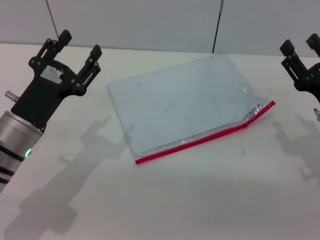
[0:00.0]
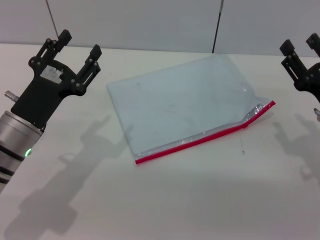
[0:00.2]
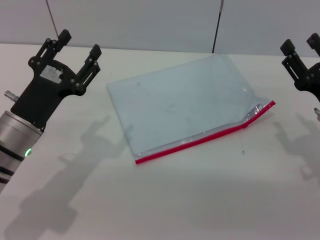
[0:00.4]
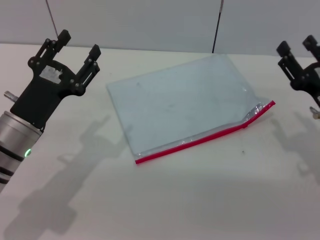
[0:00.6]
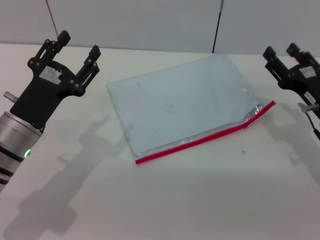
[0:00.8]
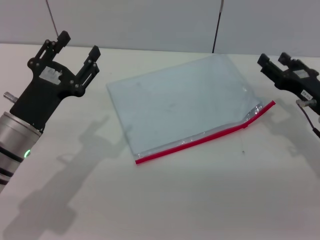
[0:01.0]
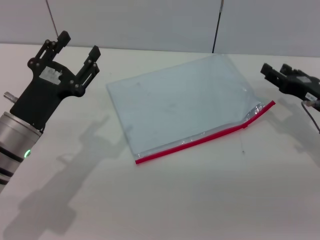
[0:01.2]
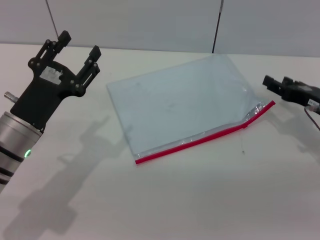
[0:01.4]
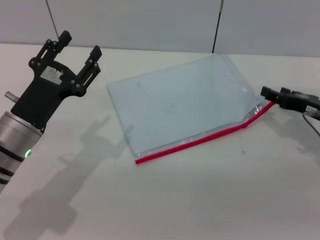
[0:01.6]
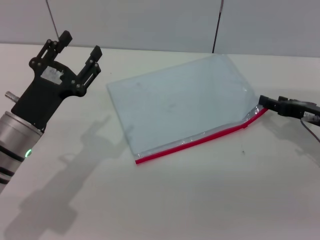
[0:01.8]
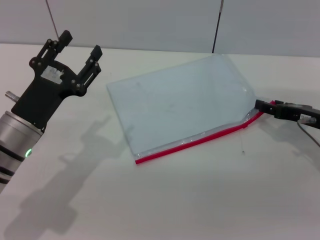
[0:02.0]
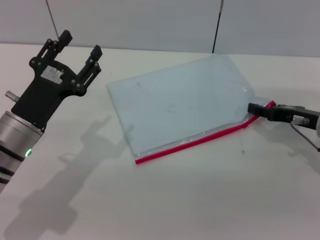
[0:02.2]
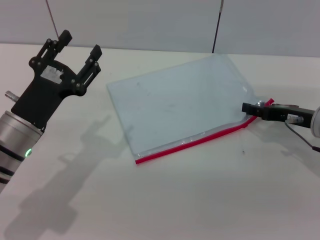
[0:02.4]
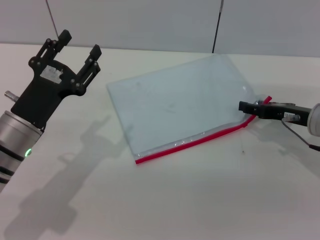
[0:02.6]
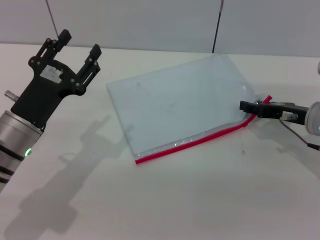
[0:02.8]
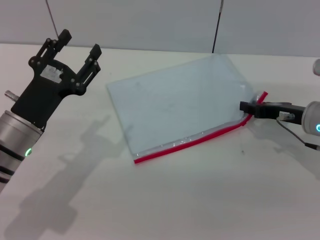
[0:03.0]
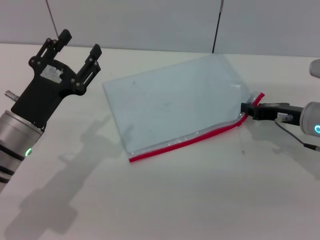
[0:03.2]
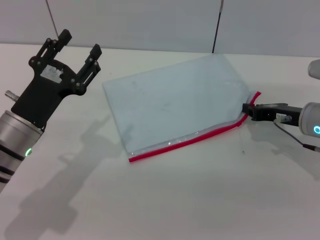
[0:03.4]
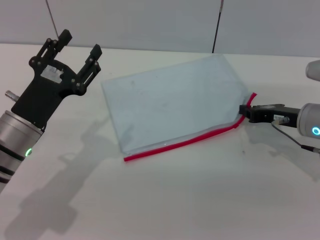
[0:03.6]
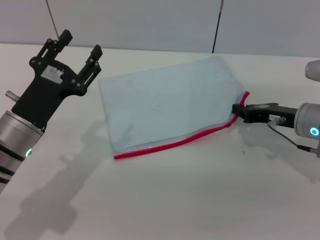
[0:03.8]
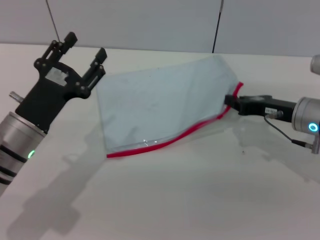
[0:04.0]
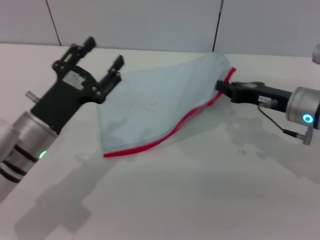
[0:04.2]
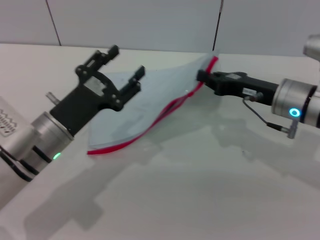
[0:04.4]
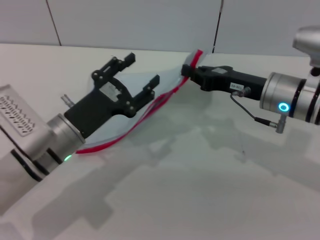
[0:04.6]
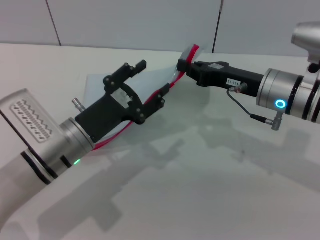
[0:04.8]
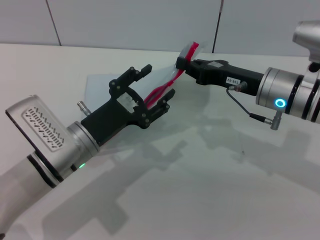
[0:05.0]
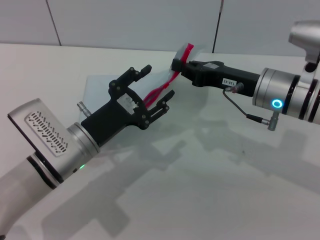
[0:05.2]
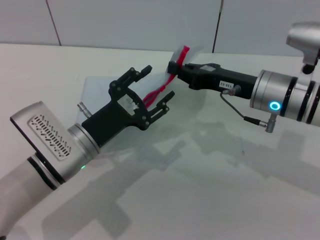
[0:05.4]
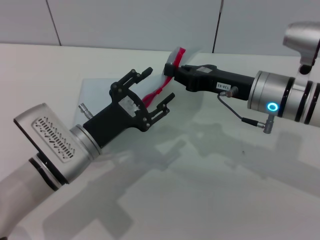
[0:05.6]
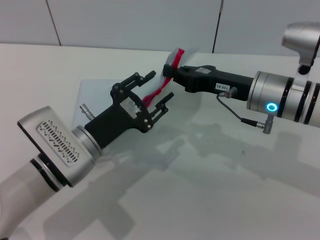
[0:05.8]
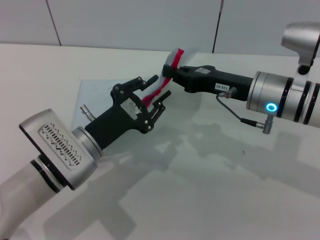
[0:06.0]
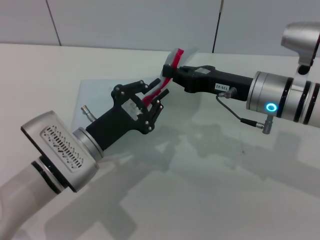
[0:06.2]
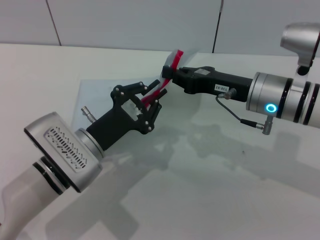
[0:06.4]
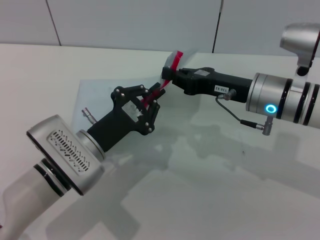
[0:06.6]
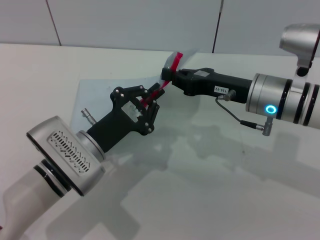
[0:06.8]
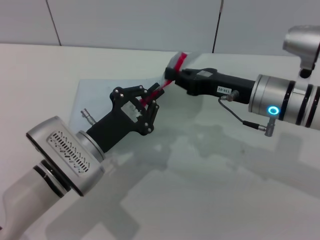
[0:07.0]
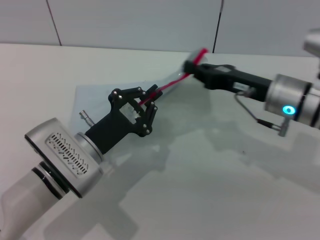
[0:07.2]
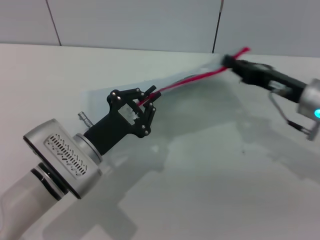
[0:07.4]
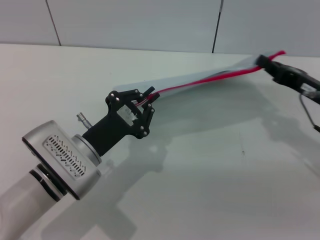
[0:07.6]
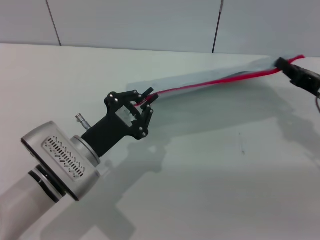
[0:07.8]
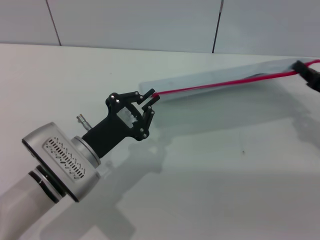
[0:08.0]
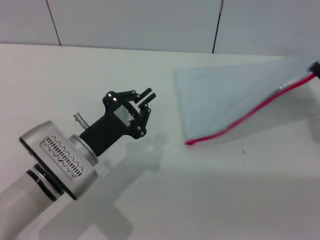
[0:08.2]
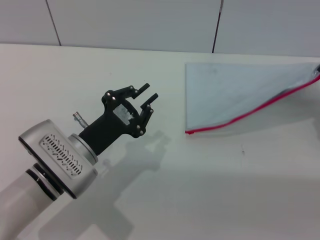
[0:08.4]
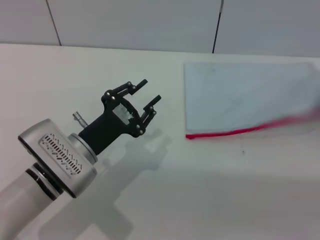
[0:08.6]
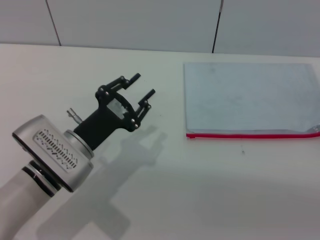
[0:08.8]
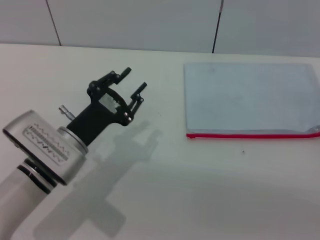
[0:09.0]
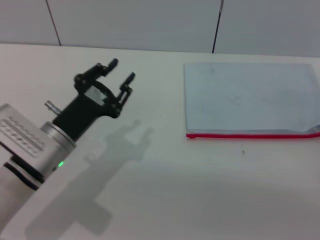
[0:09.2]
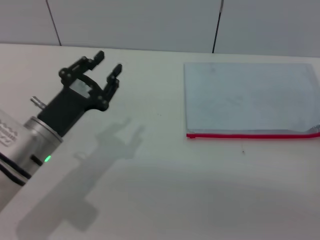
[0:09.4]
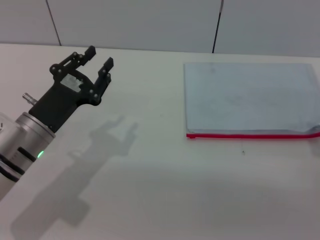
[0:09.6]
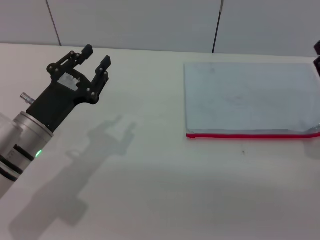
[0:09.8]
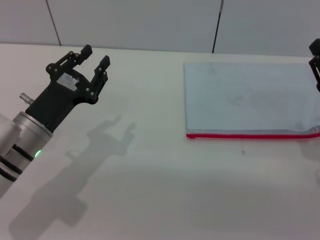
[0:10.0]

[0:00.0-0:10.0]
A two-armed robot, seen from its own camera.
Step, 0.0 to 4.4 s: Pick up the transparent plastic bag with the right gripper.
Step, 4.6 to 8.2 s: Pulling up the zipper on the transparent plastic bag with the left gripper to close it.
Step, 8.6 to 8.8 s: Place the transparent plastic bag.
0.0 to 1.4 s: The right gripper moves forward, roughly 5 cm.
1.4 to 2.8 s: The grippers make only small movements.
2.8 to 4.2 s: The right gripper closes.
4.2 to 5.8 s: The right gripper shifts approximately 5 cm to the left; the left gripper heads to the right, covering about 5 cm.
5.8 to 7.2 s: The left gripper closes its fingers.
7.2 to 8.6 s: The right gripper shifts about 15 cm to the right.
8.6 to 10.0 s: The two grippers go roughly 5 cm to the left. The right gripper opens.

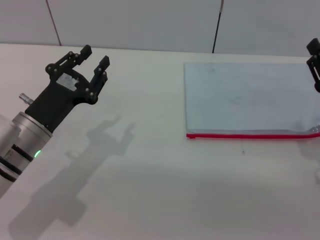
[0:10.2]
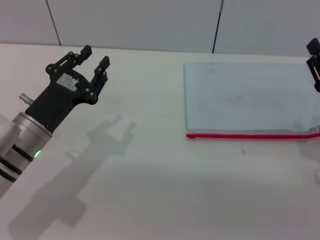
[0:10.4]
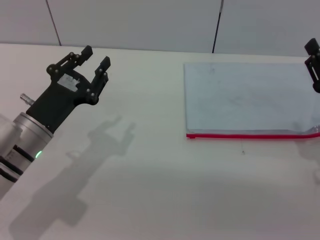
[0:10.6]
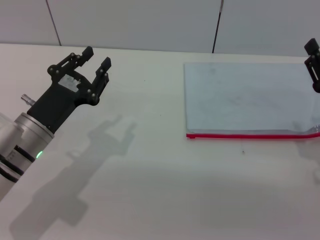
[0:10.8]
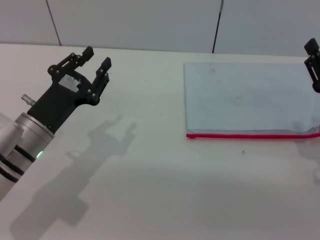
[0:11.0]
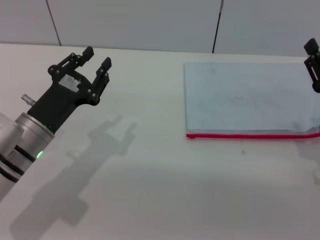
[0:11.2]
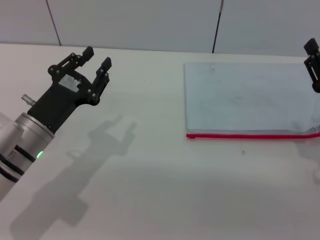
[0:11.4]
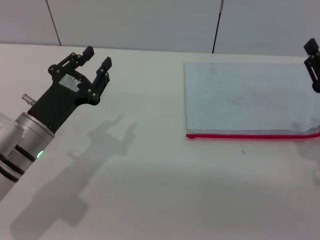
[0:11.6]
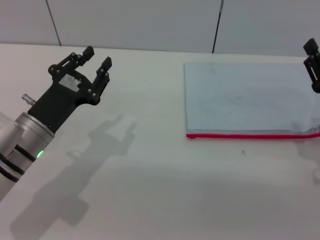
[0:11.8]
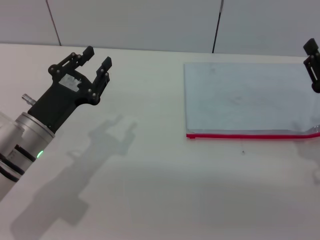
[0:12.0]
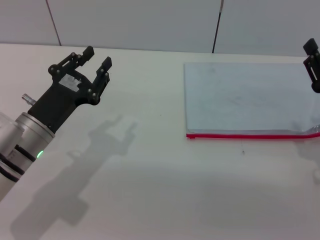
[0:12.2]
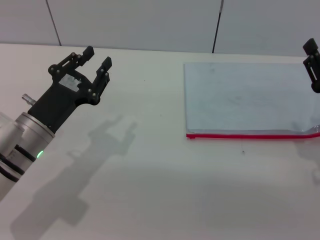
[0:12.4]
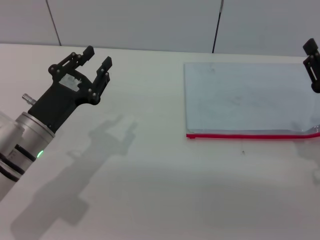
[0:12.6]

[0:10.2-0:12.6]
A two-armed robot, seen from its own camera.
10.2 to 12.6 s: Both grippers stay about where they are.

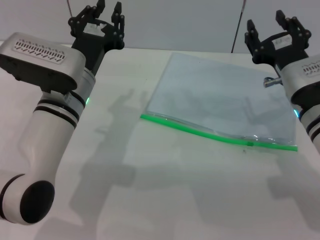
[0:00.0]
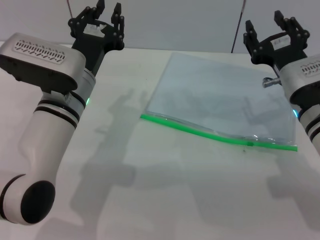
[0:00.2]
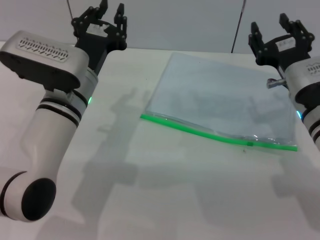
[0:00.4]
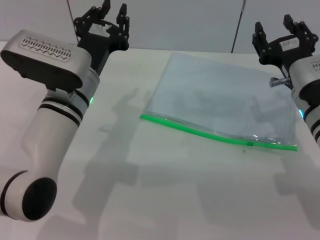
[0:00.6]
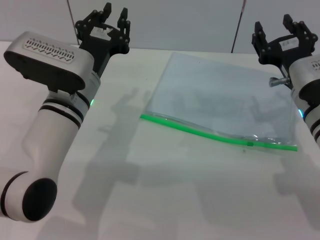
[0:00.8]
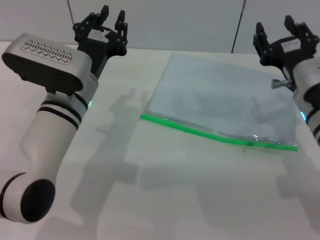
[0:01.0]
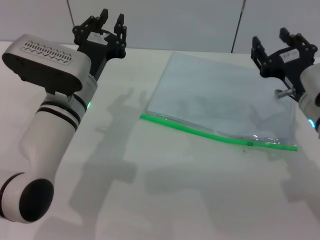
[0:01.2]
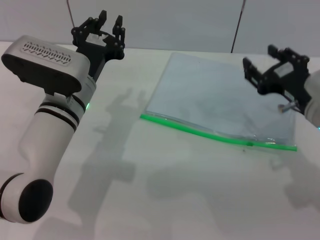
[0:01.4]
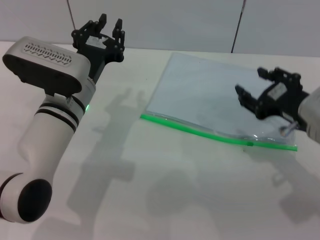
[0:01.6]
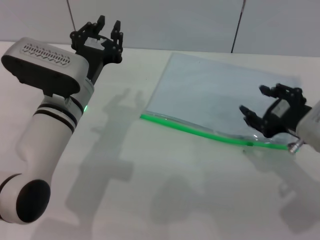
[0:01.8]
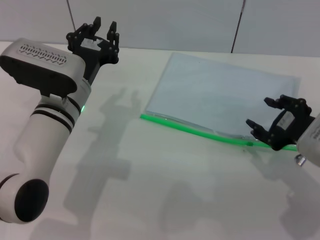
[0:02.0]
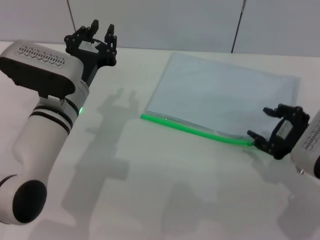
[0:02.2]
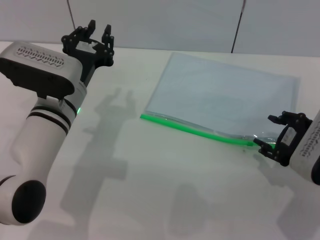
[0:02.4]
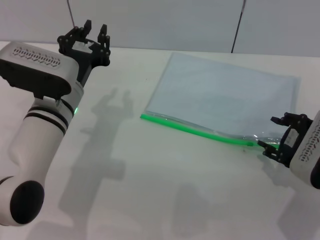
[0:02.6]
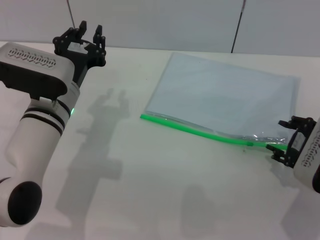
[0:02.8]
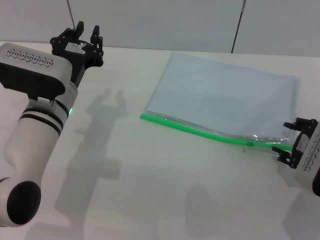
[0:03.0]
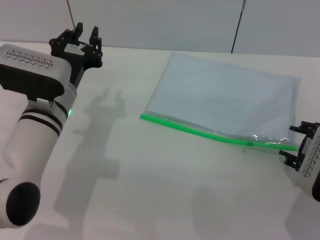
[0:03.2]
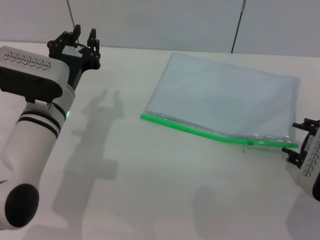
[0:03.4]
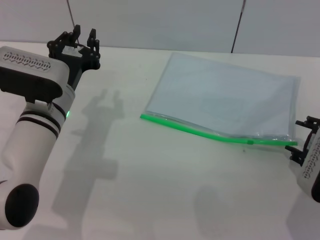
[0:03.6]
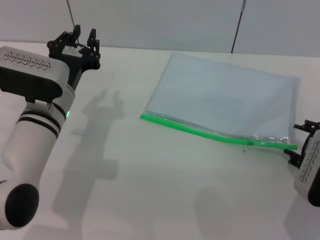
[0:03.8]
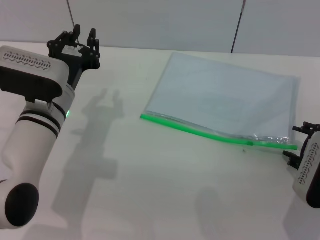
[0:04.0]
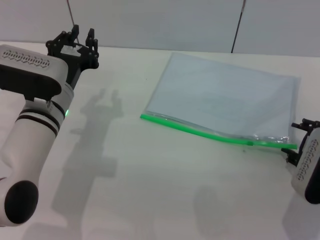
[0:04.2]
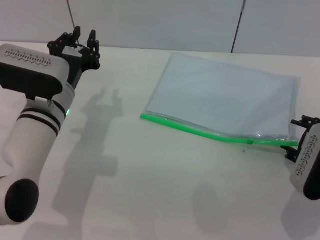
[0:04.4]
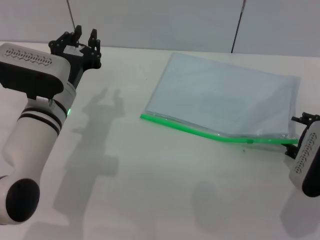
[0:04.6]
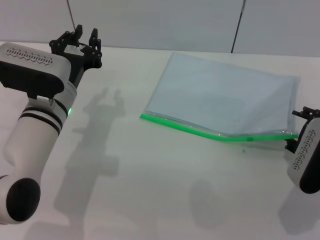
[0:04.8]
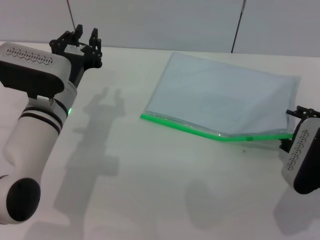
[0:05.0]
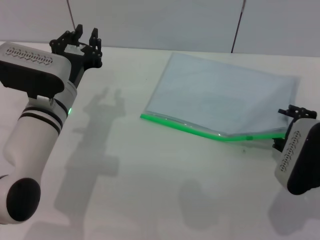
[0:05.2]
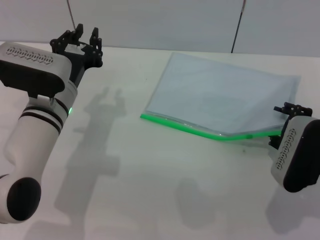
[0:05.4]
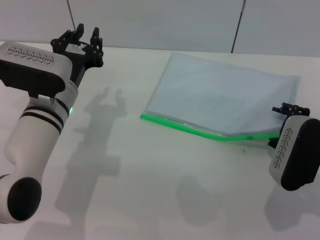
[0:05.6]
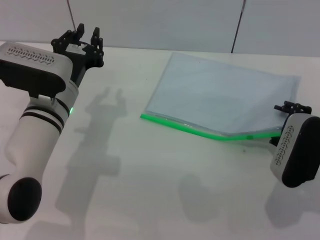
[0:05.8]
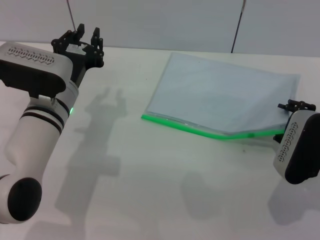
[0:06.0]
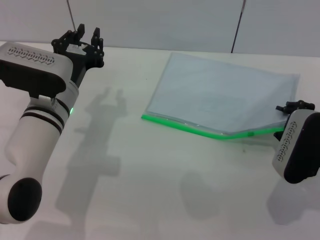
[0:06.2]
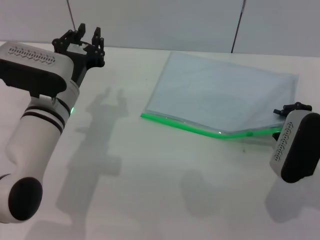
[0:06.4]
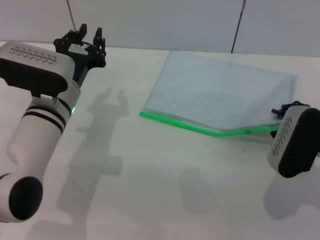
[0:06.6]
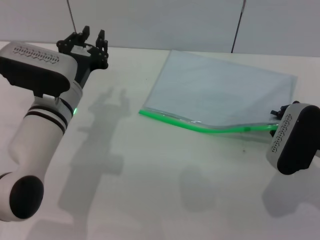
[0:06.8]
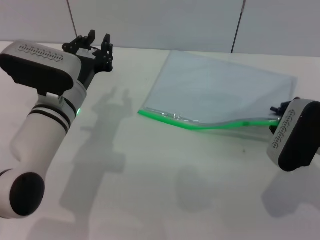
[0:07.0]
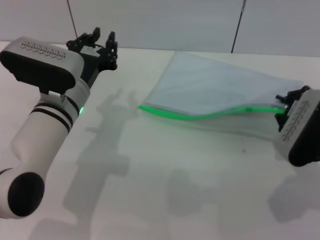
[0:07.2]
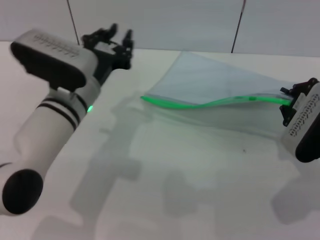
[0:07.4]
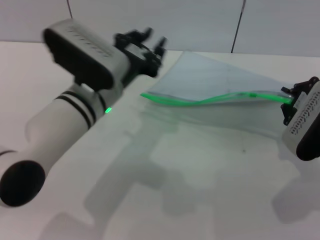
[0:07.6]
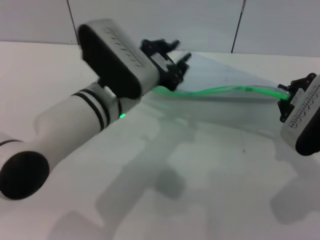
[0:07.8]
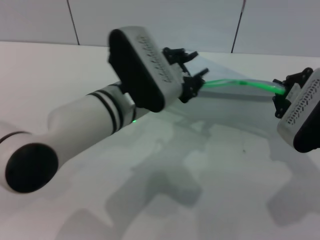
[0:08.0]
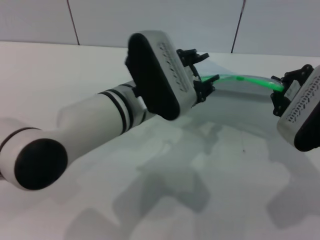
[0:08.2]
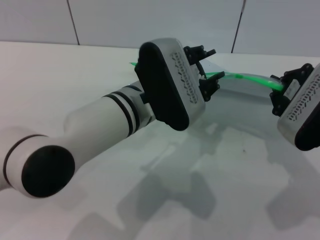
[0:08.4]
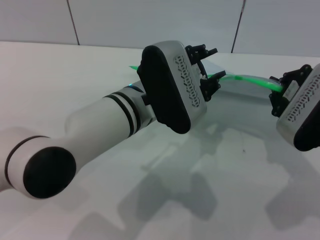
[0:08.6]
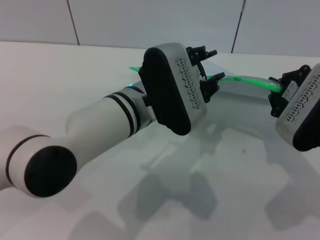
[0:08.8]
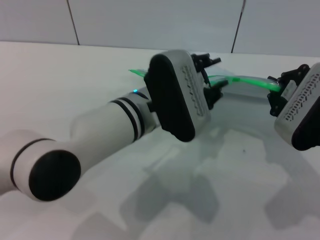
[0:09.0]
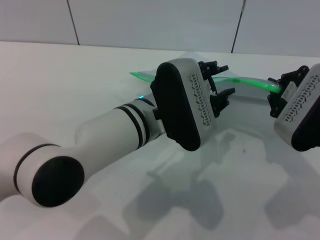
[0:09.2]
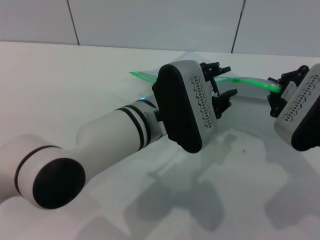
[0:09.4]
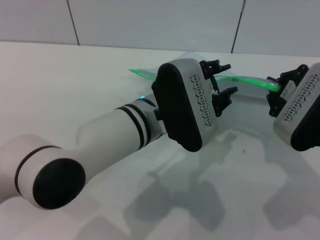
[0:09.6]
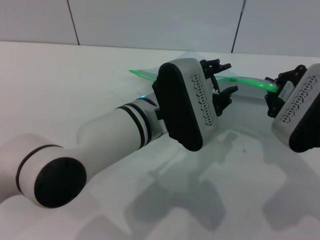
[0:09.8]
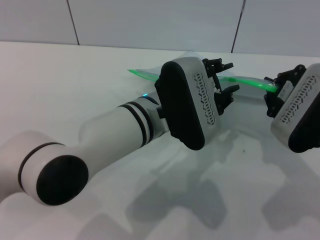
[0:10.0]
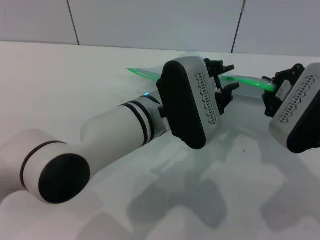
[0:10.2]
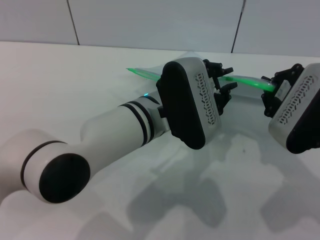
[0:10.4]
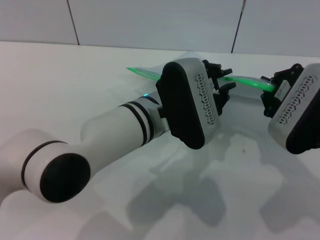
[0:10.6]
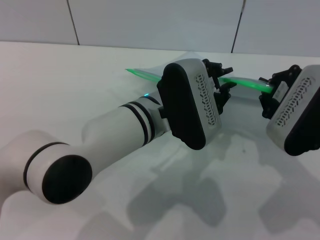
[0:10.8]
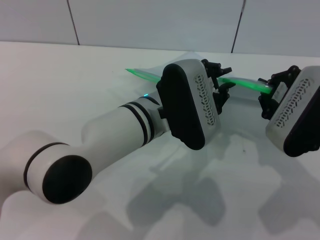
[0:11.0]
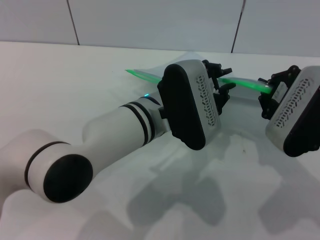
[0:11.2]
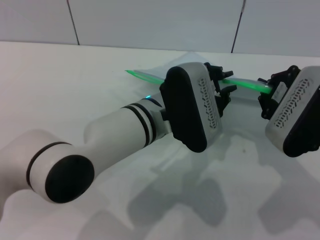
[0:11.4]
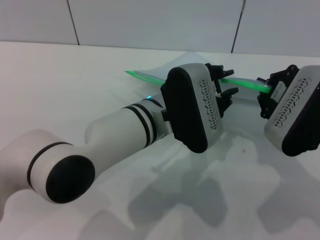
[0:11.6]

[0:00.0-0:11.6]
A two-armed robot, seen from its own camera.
Step, 0.0 to 7.6 s: Pick up the transparent plastic bag with the right gripper.
0.0 to 1.4 s: There are only small adjustments of the grippers.
1.4 to 2.8 s: The right gripper moves roughly 5 cm.
2.8 to 5.8 s: The grippers move only a little.
5.8 to 7.2 s: The right gripper closes its fingers.
7.2 to 8.8 s: The right gripper shifts by some 5 cm. Meanwhile the left gripper is displaced to the right by approximately 10 cm.
8.8 to 10.2 s: The grippers stay close to where they were, moving slightly.
10.2 to 11.6 s: Both grippers stay put.
